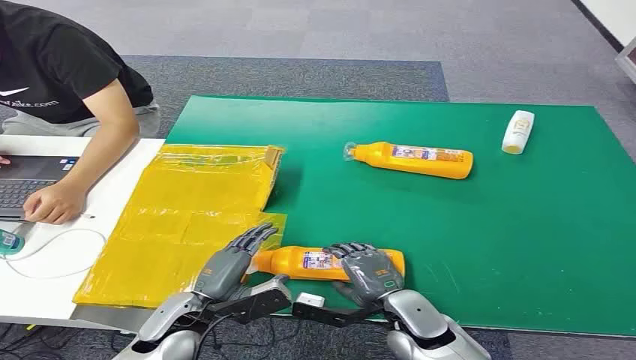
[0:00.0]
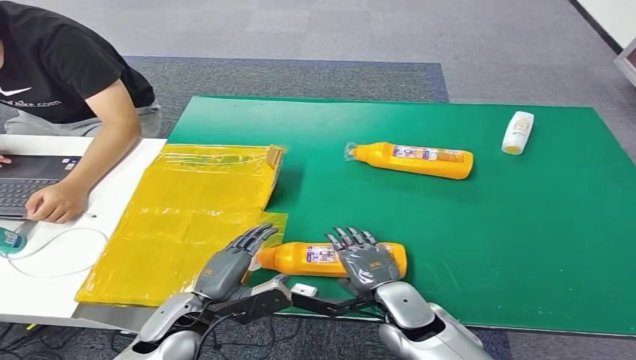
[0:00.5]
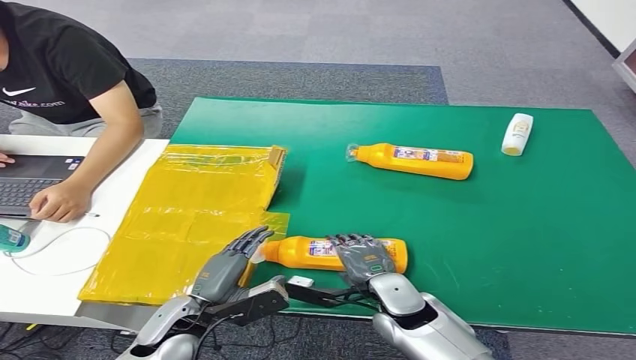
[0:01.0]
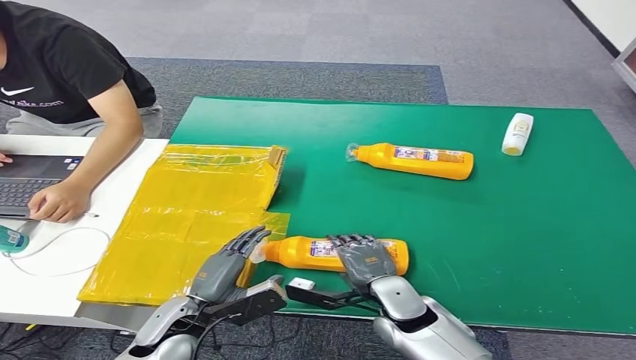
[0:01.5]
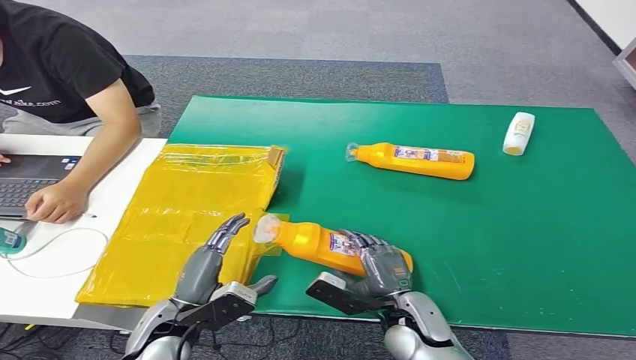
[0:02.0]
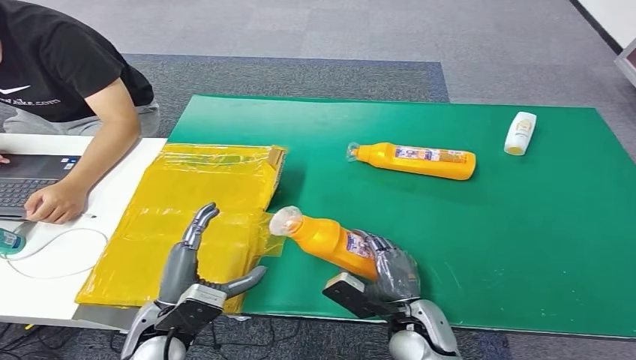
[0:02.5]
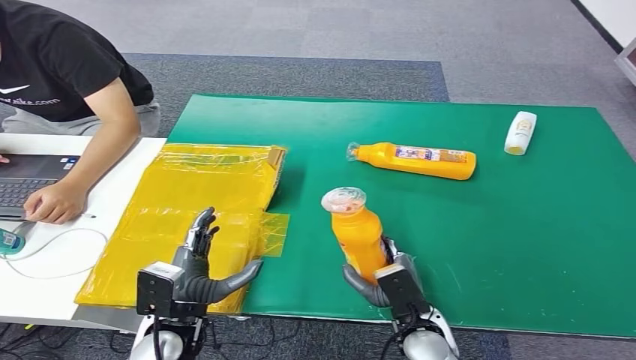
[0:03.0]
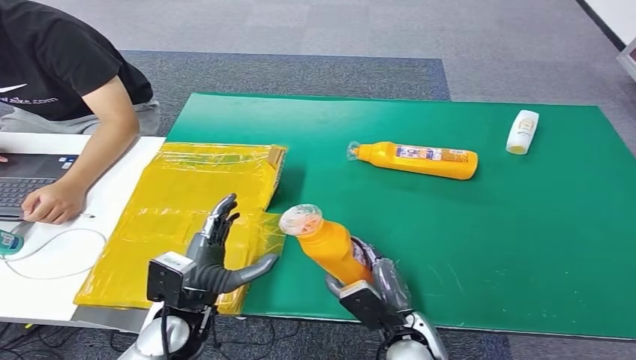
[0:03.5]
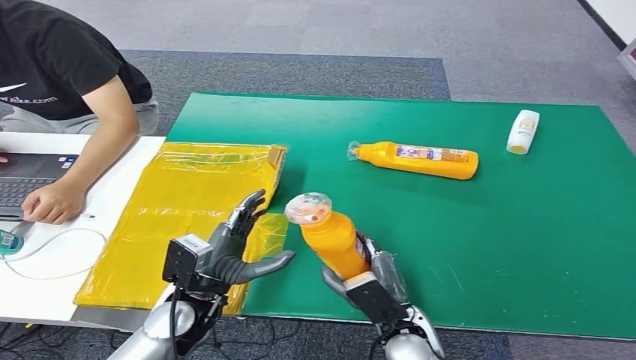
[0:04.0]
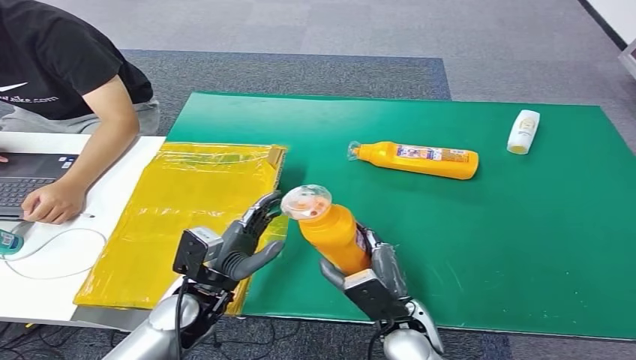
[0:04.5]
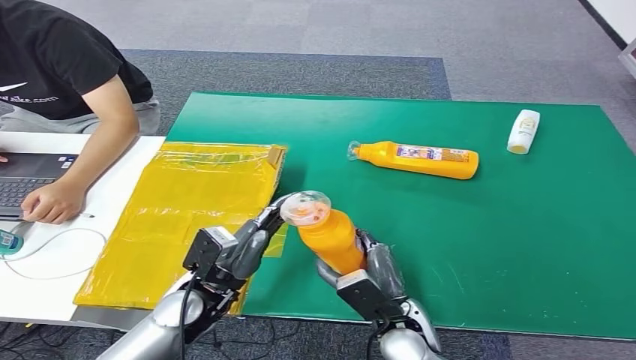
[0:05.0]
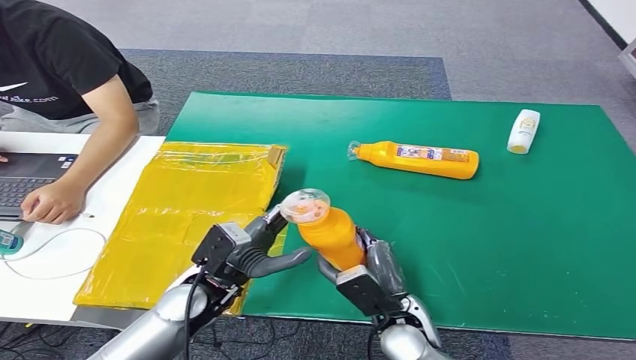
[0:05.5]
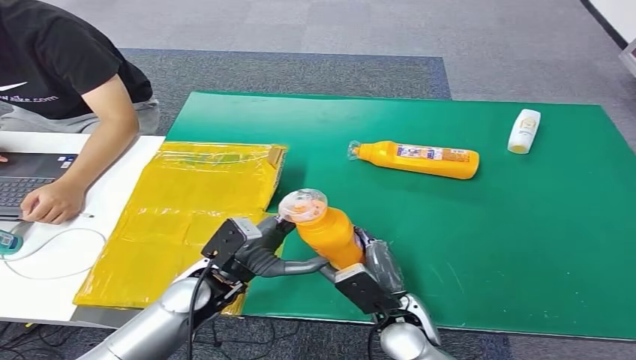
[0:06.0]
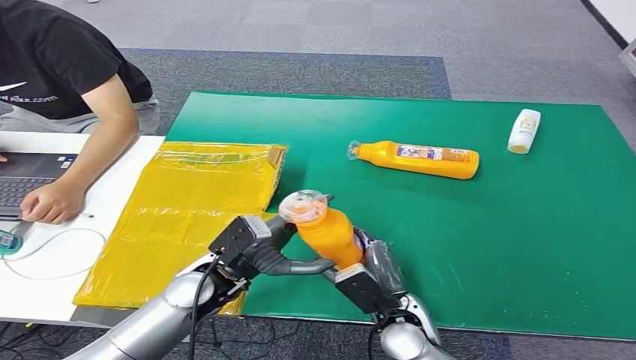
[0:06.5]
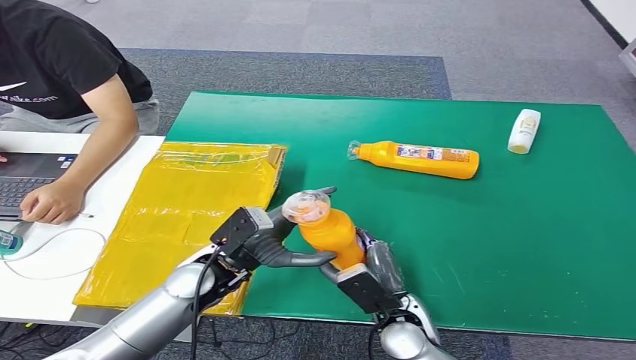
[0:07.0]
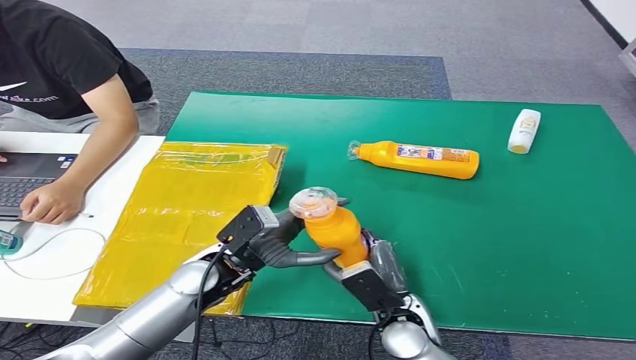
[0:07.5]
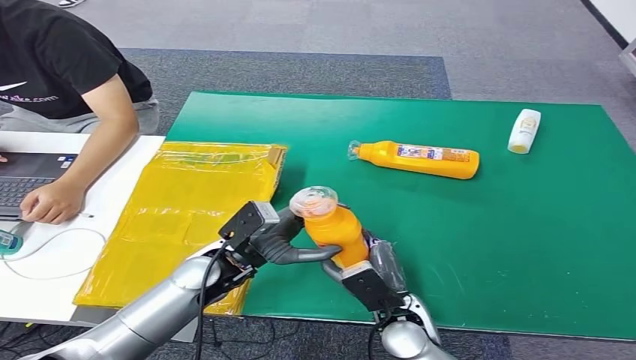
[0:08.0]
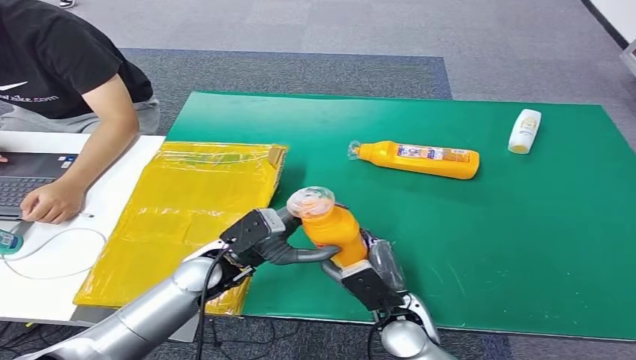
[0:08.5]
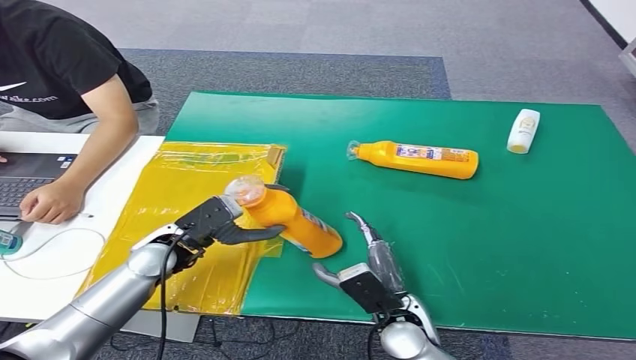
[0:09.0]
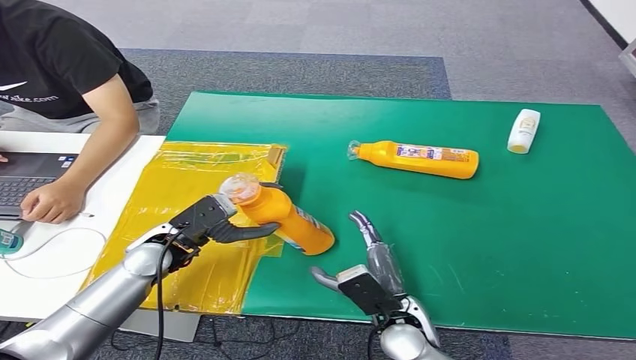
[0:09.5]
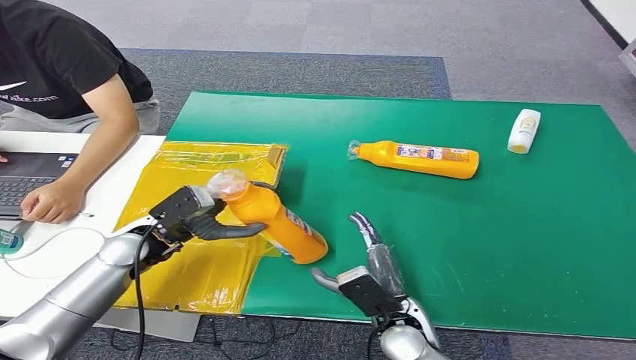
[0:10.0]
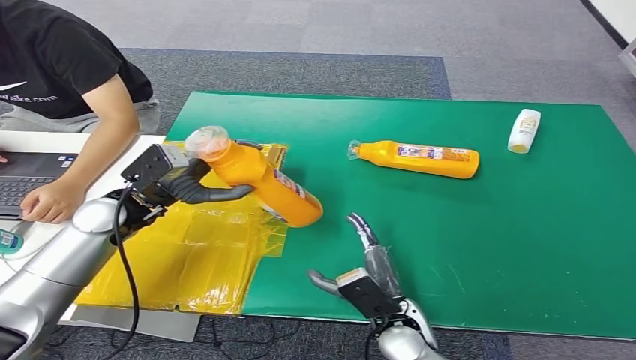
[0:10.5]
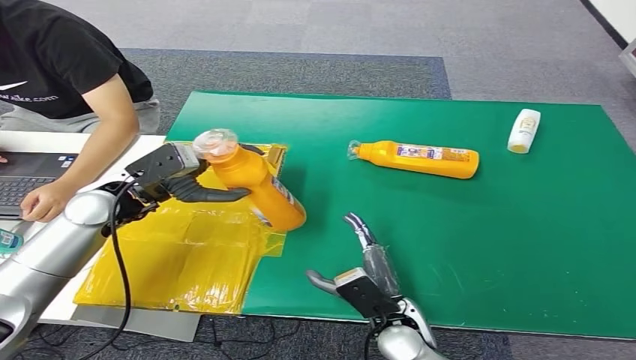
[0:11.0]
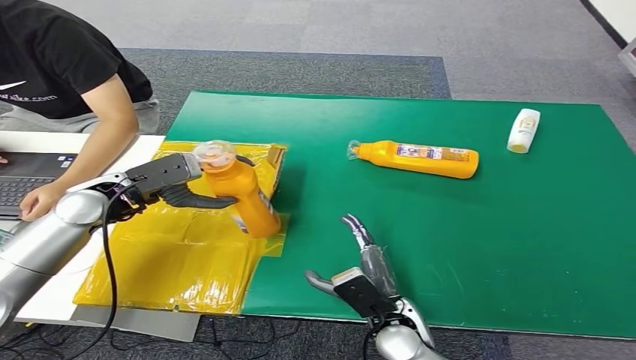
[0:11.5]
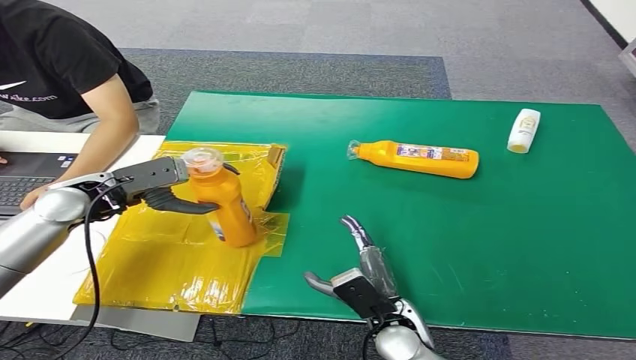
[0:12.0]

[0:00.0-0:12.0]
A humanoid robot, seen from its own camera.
Step, 0:00.0 to 0:04.0: Pick up the bottle from the table.
0:02.0 to 0:04.0: The left hand moves roughly 5 cm.
0:04.0 to 0:06.0: The hands make only small movements.
0:06.0 to 0:08.0: The hands stay close to where they were, moving slightly.
0:08.0 to 0:10.0: The left hand goes about 10 cm to the left.
0:10.0 to 0:12.0: The left hand goes about 10 cm to the left and upward.

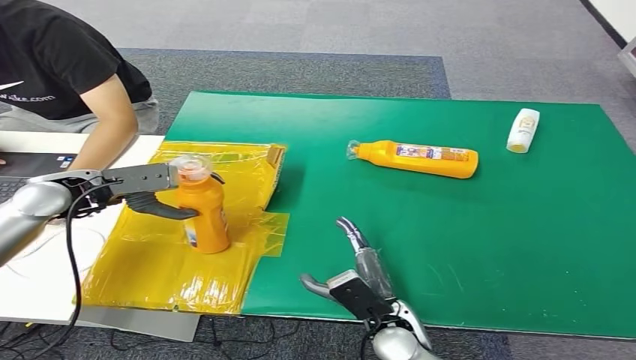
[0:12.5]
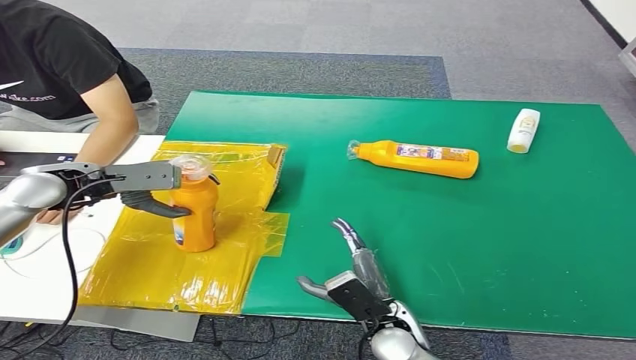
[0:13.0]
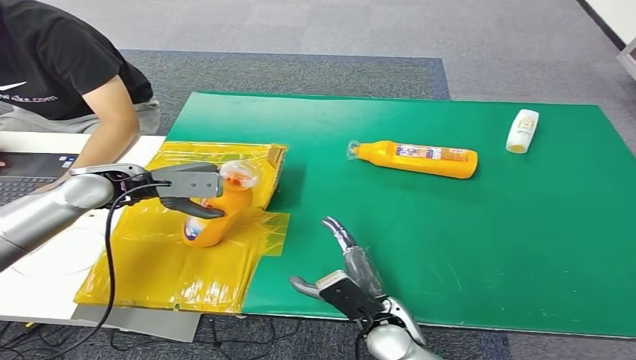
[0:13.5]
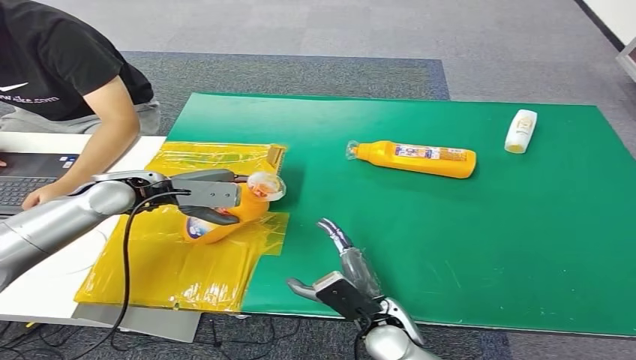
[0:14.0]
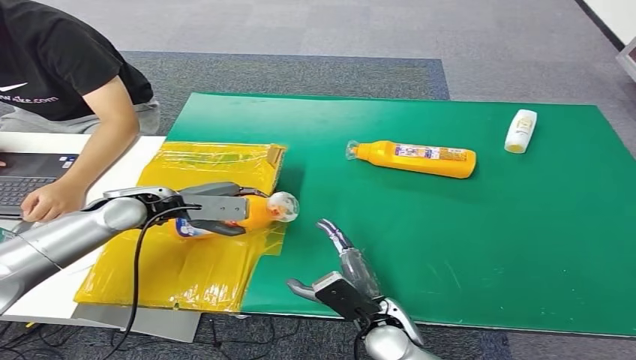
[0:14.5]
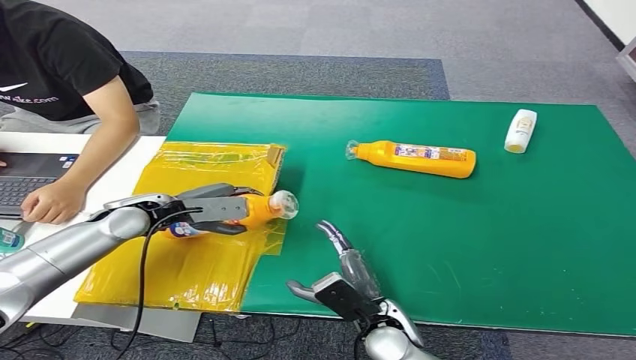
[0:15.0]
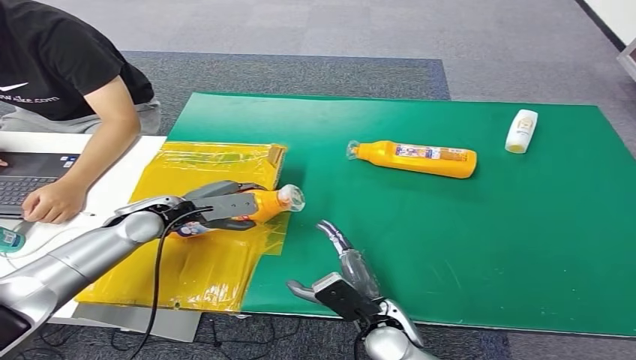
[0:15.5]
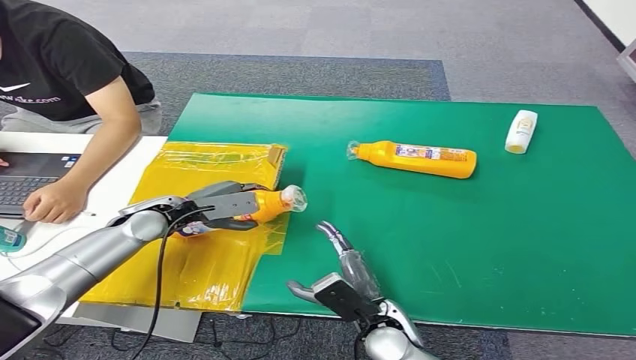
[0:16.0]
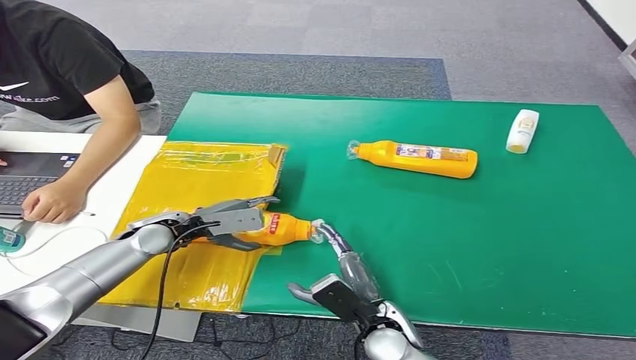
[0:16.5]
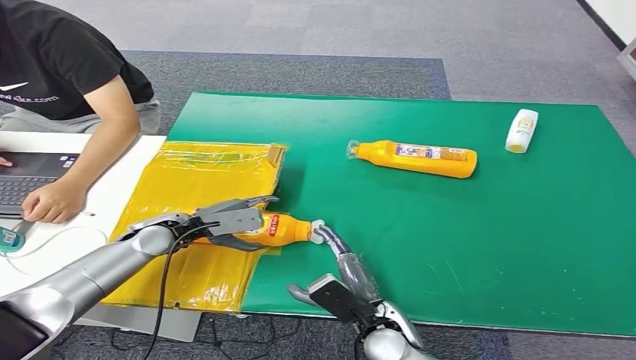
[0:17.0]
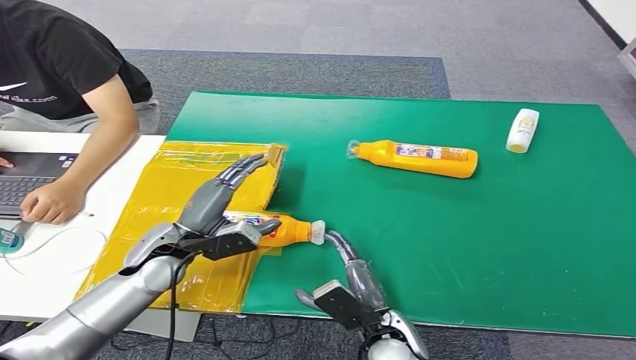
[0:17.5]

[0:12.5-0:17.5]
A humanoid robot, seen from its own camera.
Step, 0:12.5 to 0:17.5: Turn the bottle to the front side.
0:12.5 to 0:15.0: The left hand goes roughly 10 cm to the right and downward.
0:15.0 to 0:17.5: The left hand heads to the right and backward, covering roughly 10 cm.

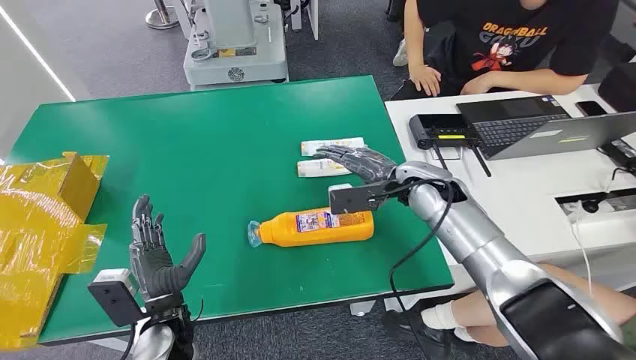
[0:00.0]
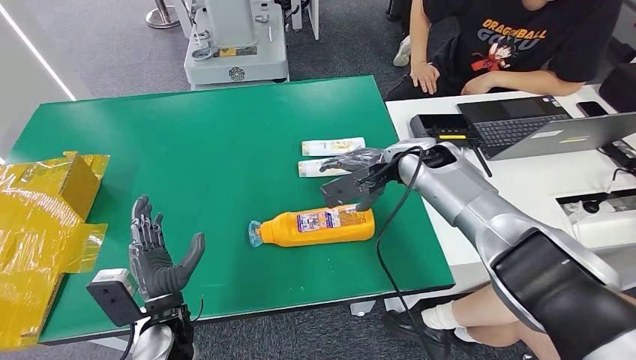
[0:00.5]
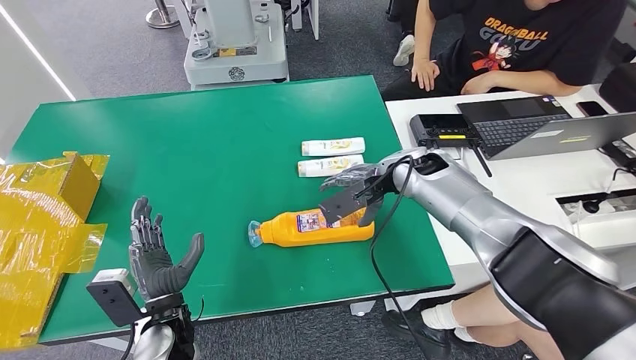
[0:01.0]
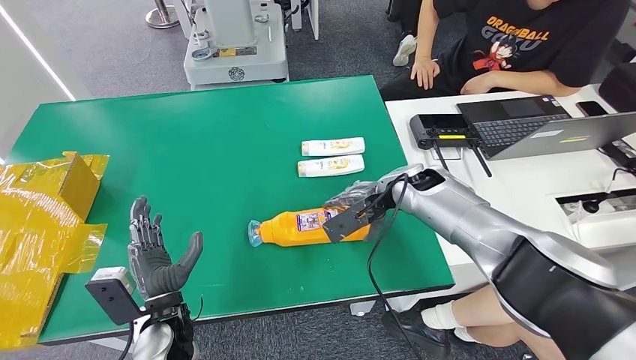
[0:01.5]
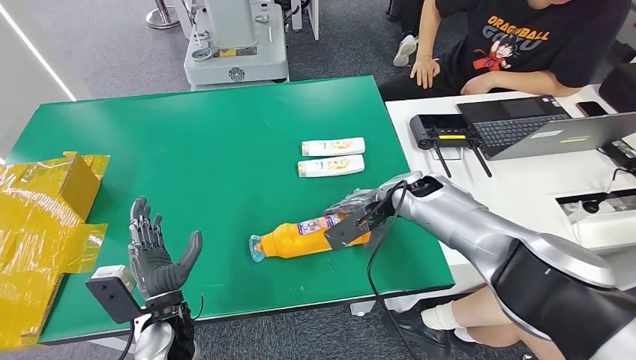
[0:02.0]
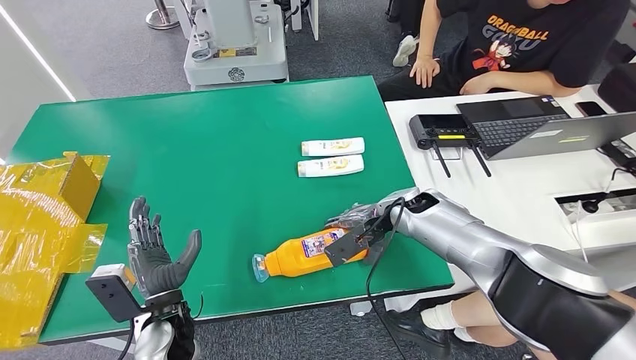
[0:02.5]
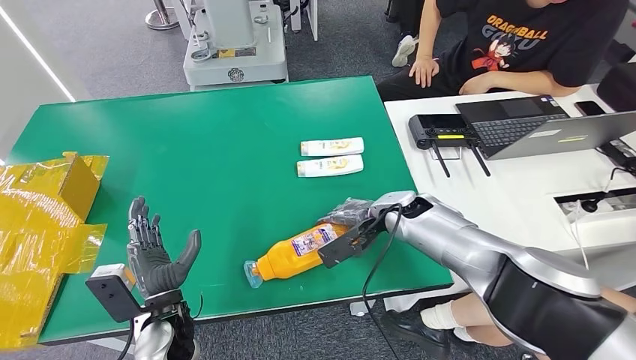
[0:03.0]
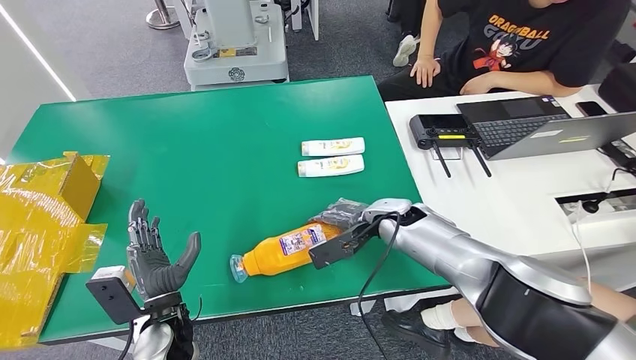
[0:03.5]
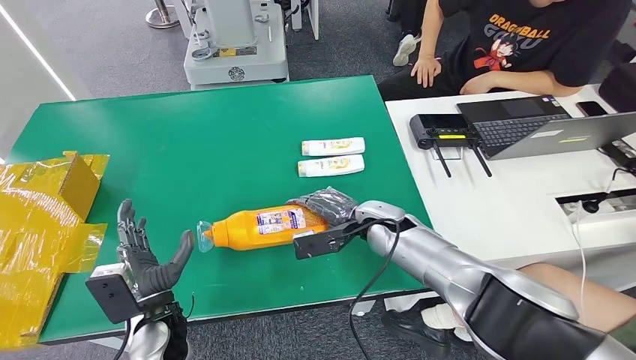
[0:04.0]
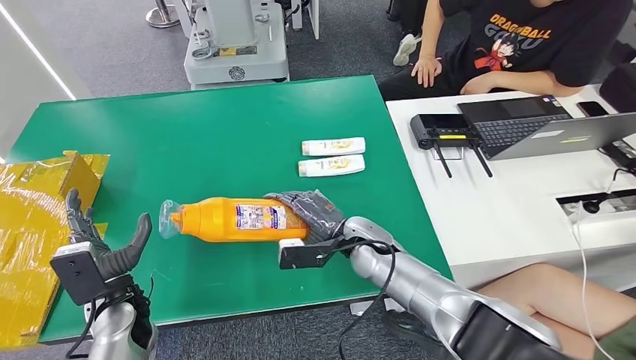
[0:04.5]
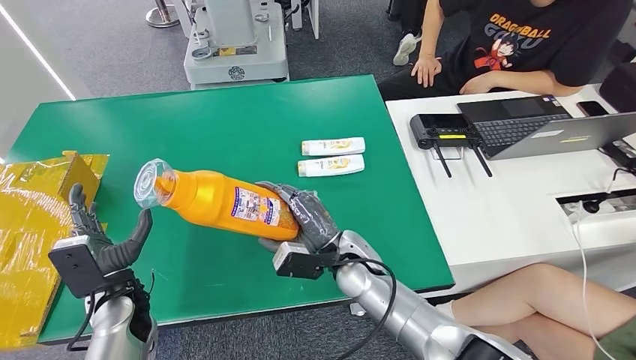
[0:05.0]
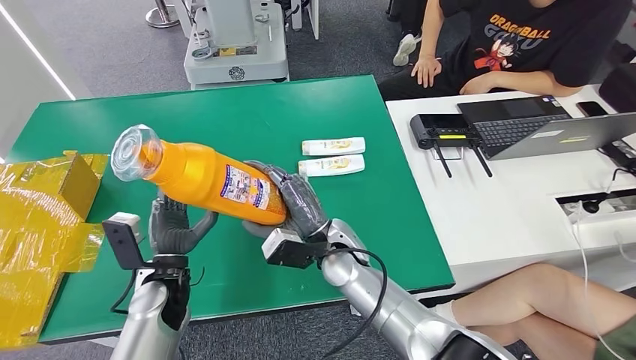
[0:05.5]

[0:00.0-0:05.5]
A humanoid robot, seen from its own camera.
Step, 0:00.0 to 0:04.5: Pick up the bottle from the table.
0:02.0 to 0:03.5: The right hand moves approximately 5 cm.
